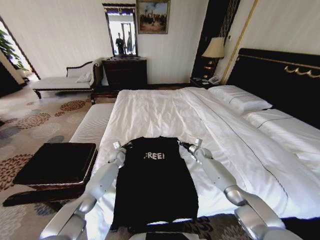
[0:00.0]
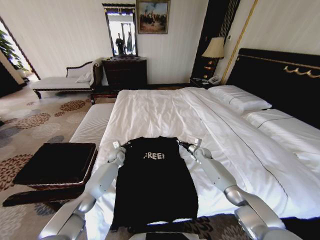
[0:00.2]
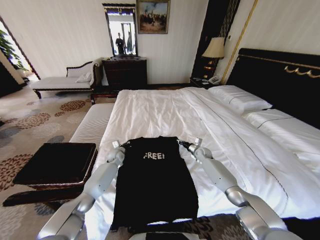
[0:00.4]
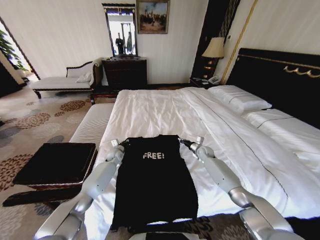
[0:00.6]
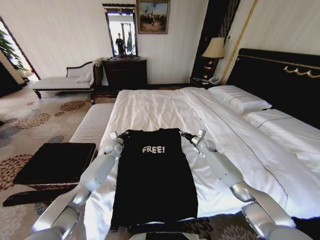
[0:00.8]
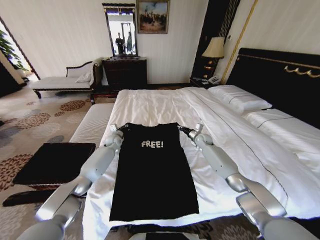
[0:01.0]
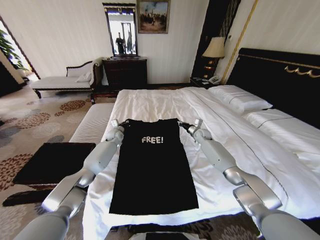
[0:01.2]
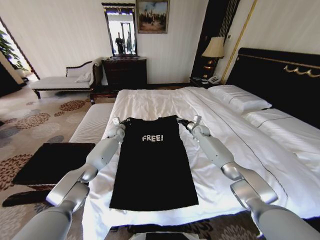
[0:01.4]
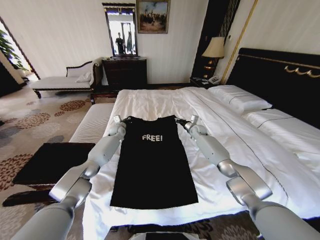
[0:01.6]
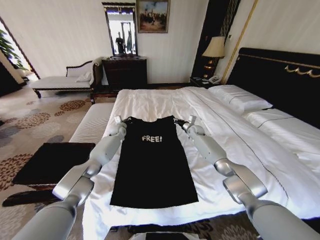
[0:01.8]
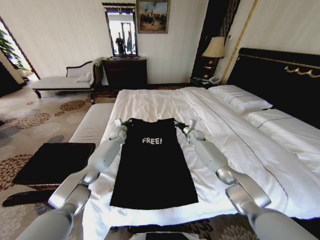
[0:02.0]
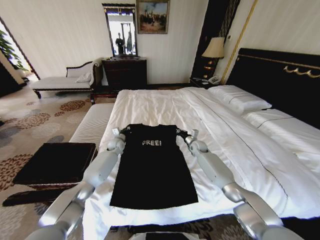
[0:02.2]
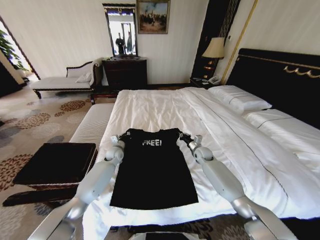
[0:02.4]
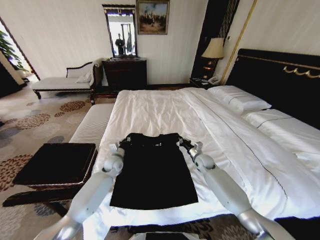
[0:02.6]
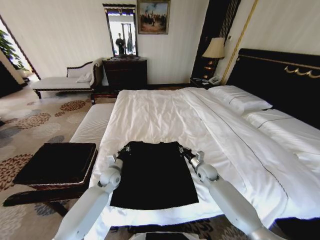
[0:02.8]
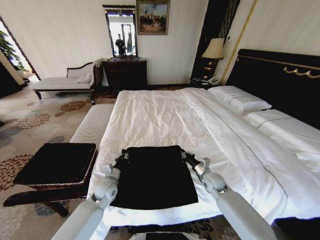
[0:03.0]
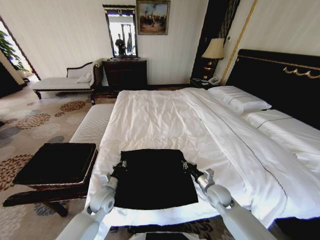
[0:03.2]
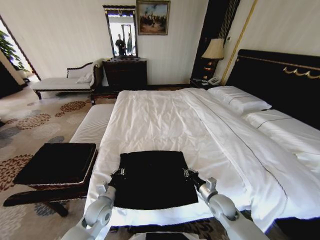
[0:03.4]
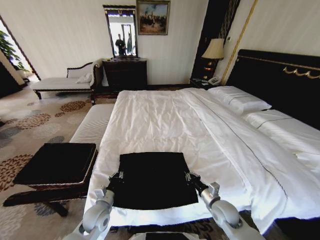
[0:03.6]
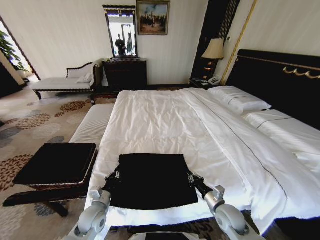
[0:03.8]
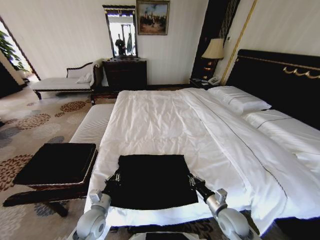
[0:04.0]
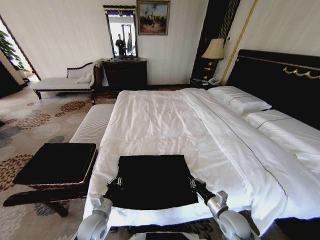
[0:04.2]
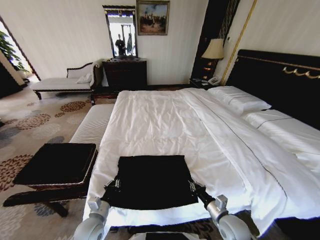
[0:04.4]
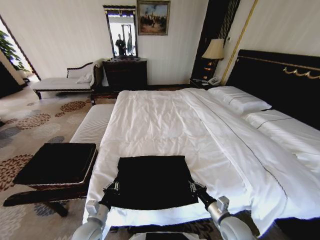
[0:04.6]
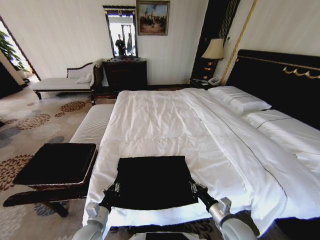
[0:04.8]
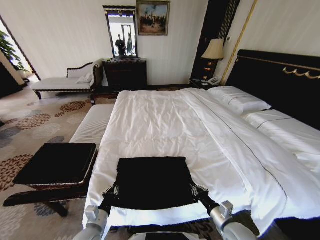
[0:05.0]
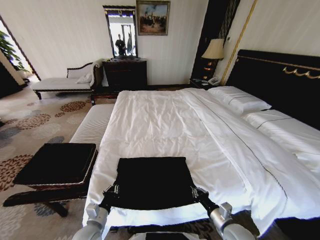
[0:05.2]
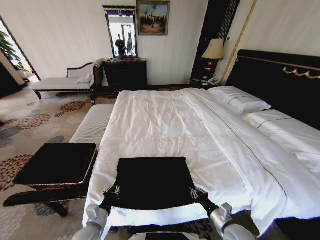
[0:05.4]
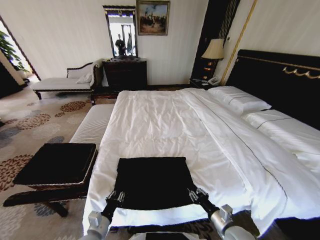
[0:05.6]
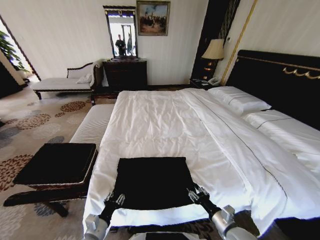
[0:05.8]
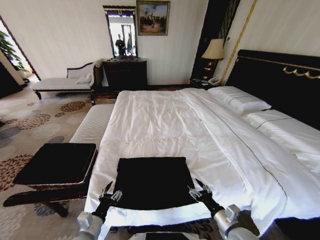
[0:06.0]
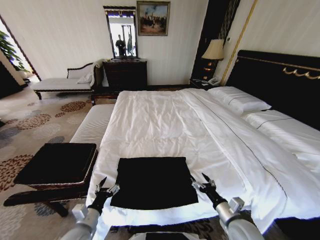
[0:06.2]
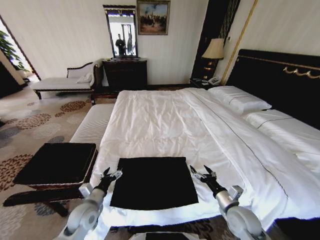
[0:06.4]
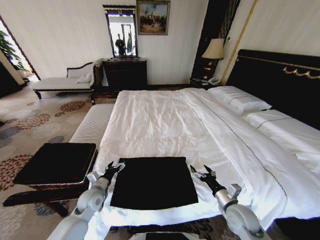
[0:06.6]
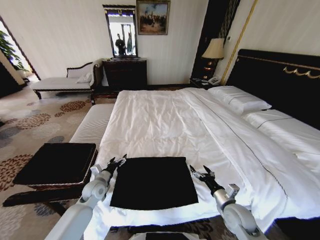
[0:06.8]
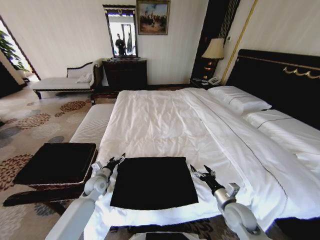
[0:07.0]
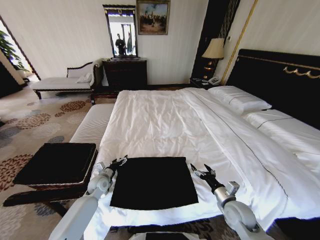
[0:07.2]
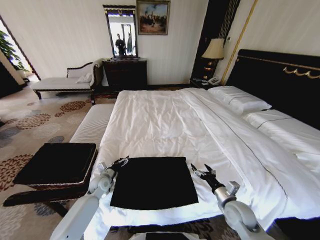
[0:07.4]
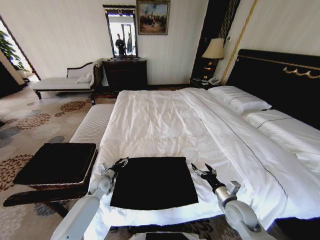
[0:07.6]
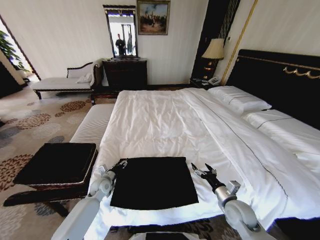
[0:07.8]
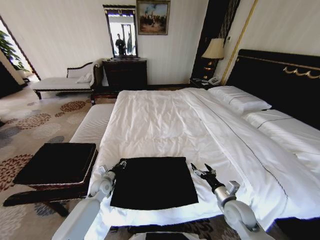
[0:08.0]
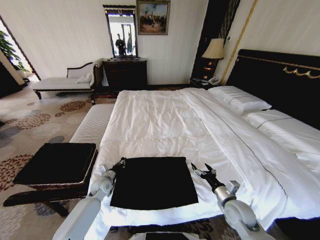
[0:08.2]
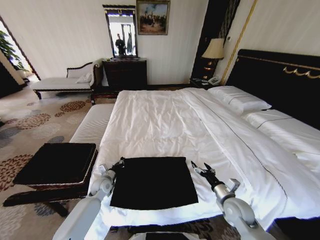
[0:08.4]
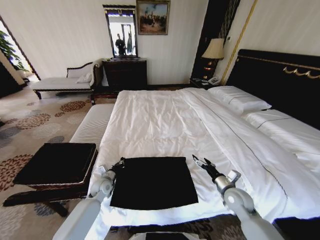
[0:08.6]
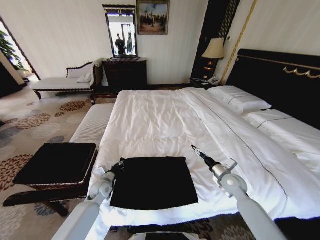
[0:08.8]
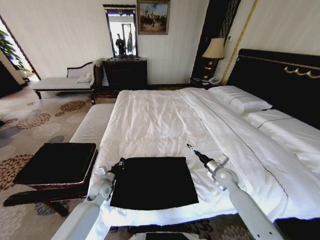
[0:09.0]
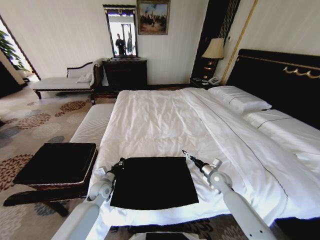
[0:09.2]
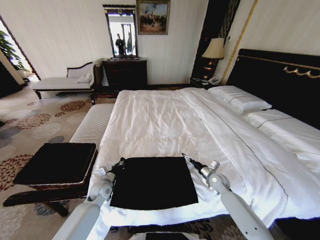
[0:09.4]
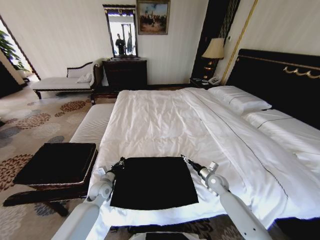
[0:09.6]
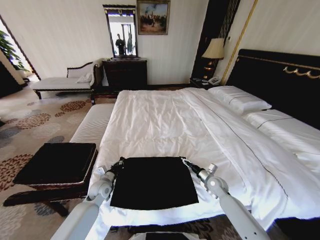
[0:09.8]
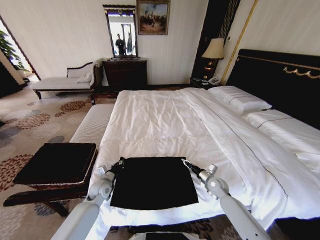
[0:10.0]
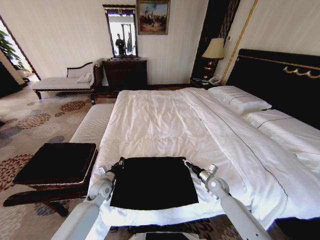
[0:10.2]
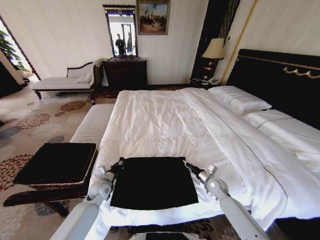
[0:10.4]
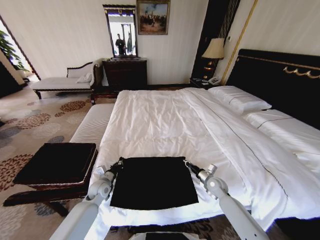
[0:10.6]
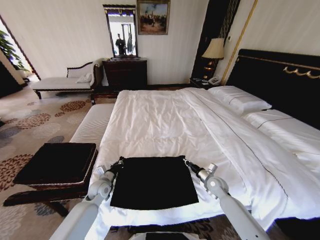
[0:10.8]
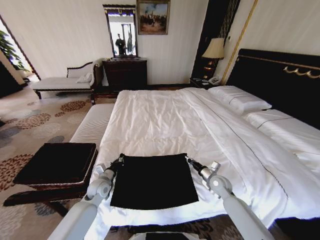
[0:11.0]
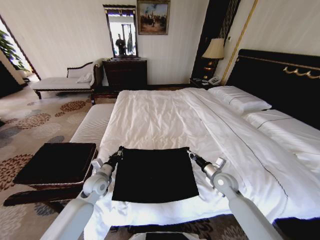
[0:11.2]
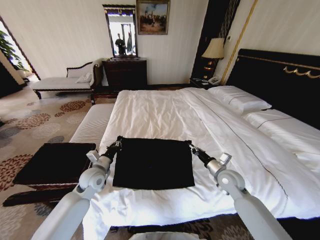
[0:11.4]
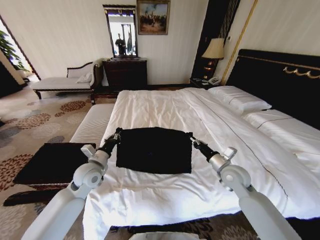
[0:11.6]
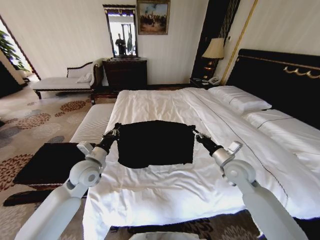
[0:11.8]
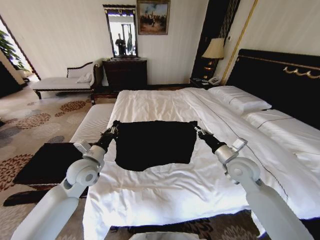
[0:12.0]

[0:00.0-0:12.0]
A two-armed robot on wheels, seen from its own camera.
Task of the whole recording: Fold the clothes on the bed and place them into the basket.
0:00.0 to 0:01.6: Both grippers travel together upward and forward, roughly 15 cm.
0:01.6 to 0:03.0: Both grippers move backward, roughly 30 cm.
0:03.0 to 0:04.4: Both grippers move backward, approximately 15 cm.
0:04.4 to 0:06.0: The left gripper moves backward, some 5 cm, and opens up; the right gripper opens.
0:06.0 to 0:07.6: The right gripper heads forward, covering some 10 cm, and opens its fingers. The left gripper shifts approximately 25 cm forward.
0:07.6 to 0:09.0: The right gripper heads forward, covering roughly 15 cm. The left gripper closes up.
0:09.0 to 0:10.4: The right gripper is displaced downward by roughly 5 cm, and closes up.
0:10.4 to 0:12.0: The grippers both shift upward by some 20 cm.

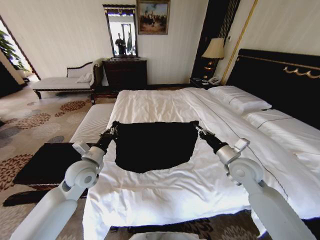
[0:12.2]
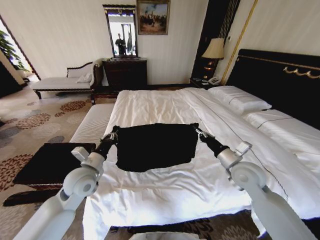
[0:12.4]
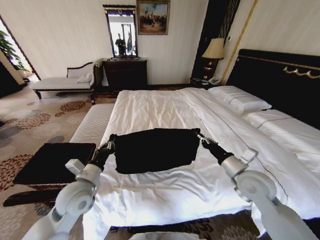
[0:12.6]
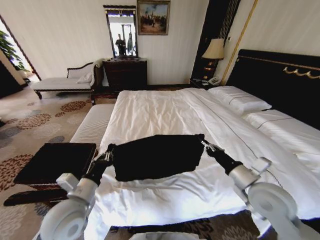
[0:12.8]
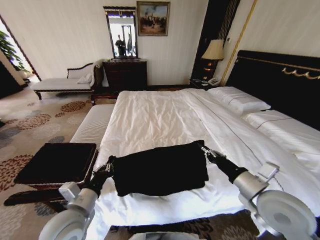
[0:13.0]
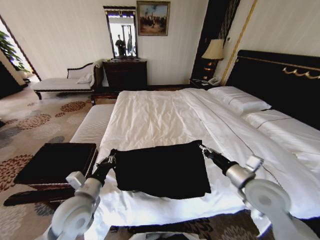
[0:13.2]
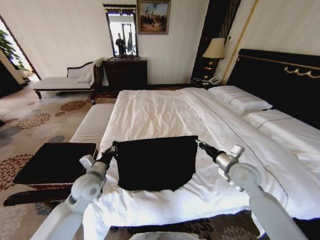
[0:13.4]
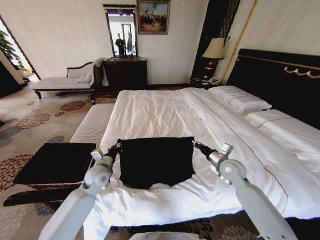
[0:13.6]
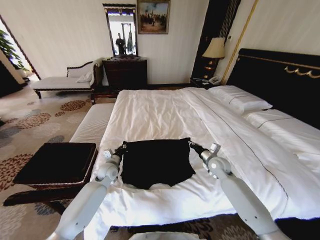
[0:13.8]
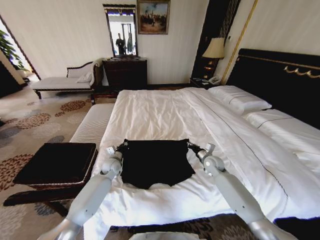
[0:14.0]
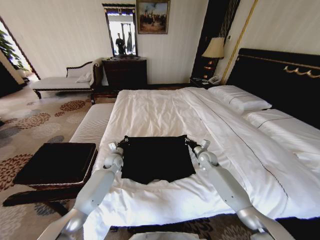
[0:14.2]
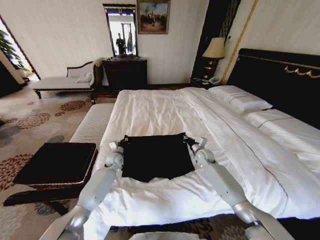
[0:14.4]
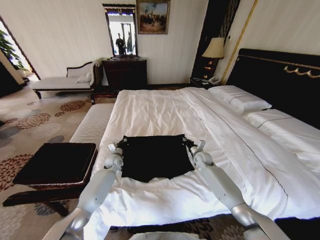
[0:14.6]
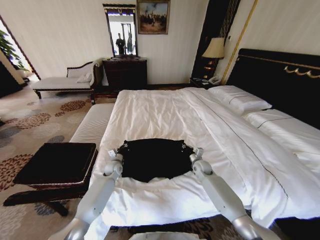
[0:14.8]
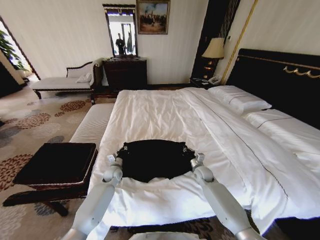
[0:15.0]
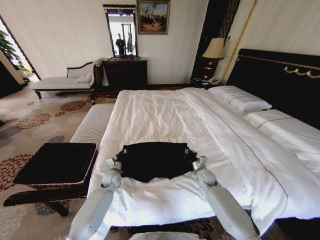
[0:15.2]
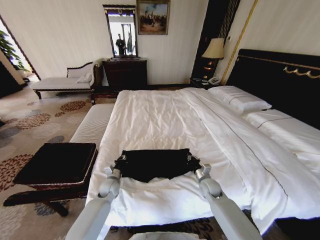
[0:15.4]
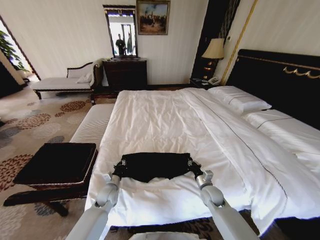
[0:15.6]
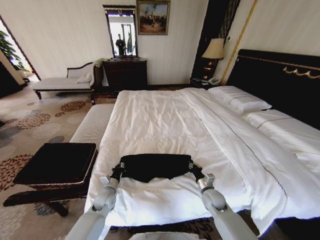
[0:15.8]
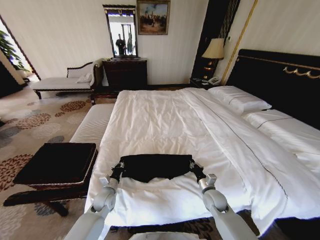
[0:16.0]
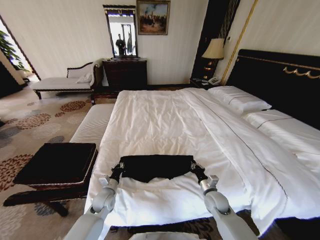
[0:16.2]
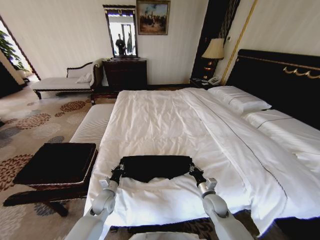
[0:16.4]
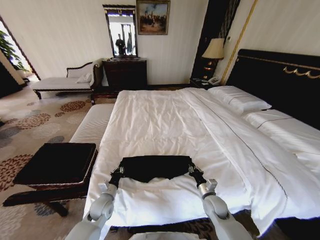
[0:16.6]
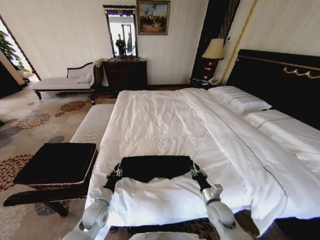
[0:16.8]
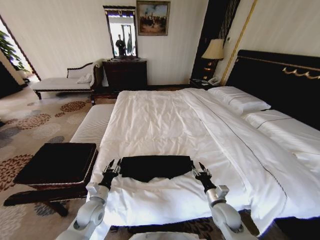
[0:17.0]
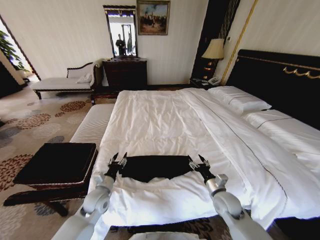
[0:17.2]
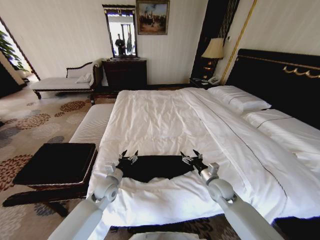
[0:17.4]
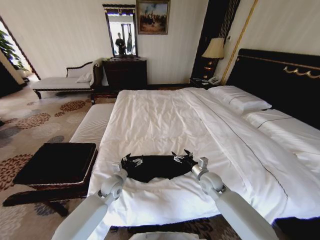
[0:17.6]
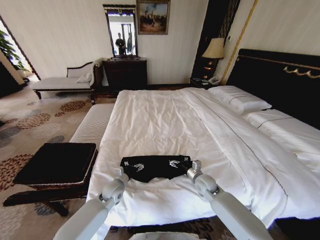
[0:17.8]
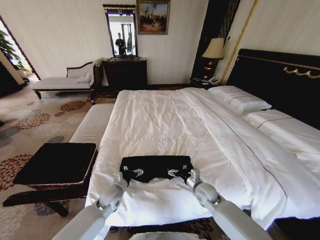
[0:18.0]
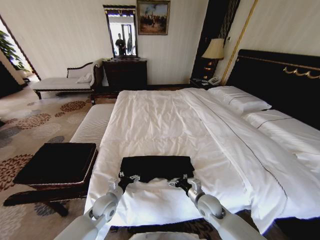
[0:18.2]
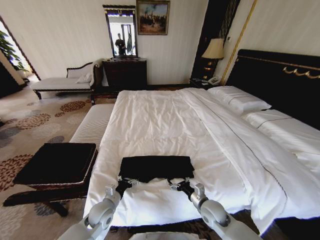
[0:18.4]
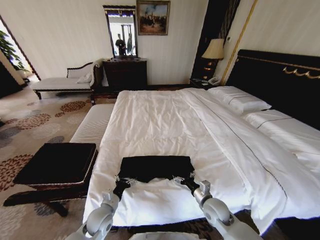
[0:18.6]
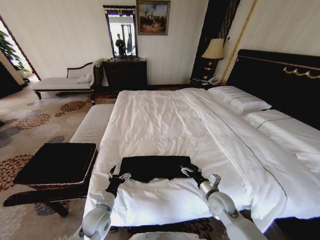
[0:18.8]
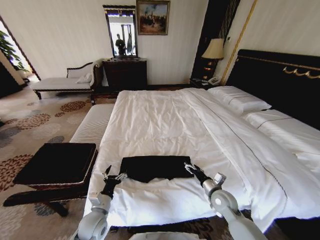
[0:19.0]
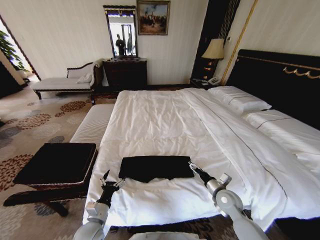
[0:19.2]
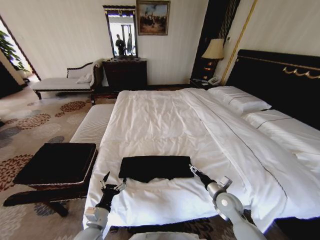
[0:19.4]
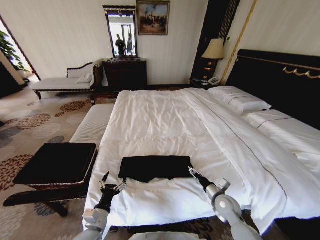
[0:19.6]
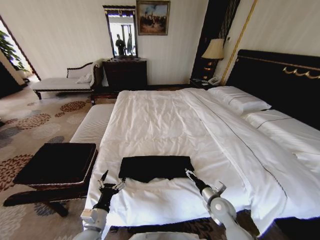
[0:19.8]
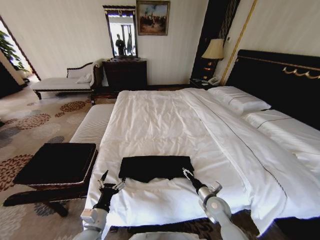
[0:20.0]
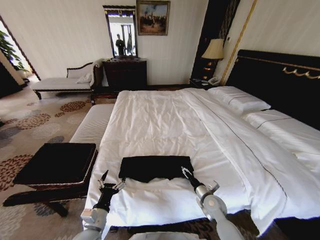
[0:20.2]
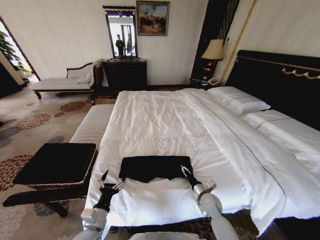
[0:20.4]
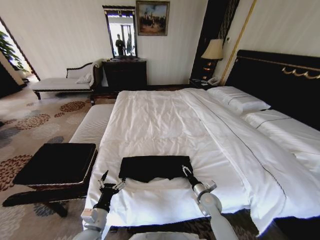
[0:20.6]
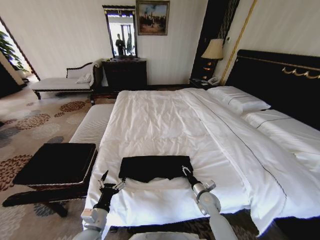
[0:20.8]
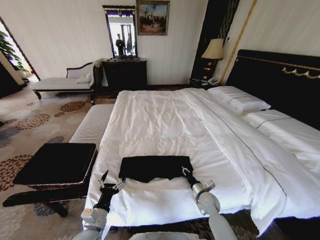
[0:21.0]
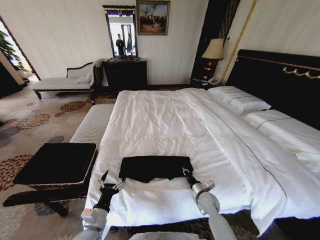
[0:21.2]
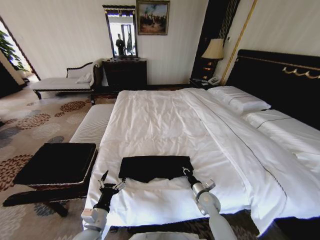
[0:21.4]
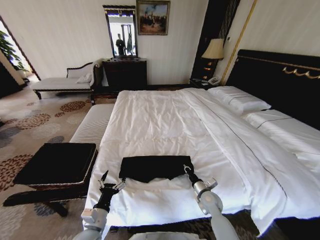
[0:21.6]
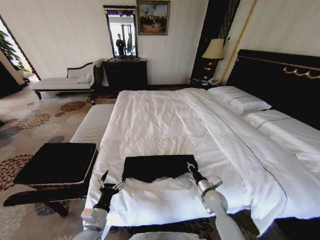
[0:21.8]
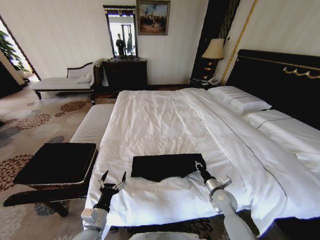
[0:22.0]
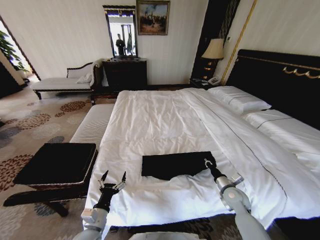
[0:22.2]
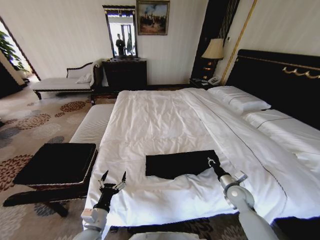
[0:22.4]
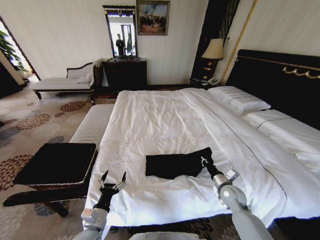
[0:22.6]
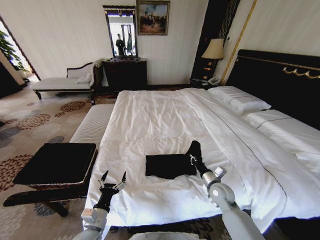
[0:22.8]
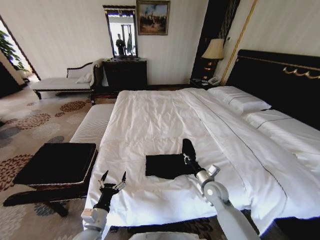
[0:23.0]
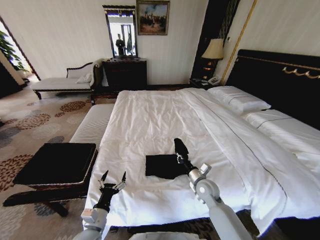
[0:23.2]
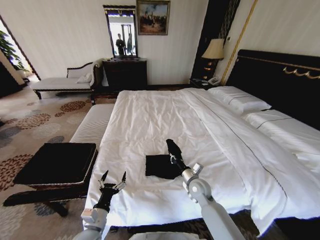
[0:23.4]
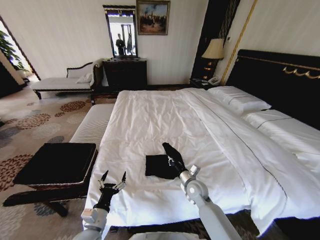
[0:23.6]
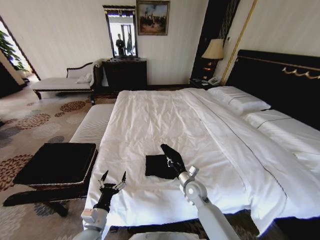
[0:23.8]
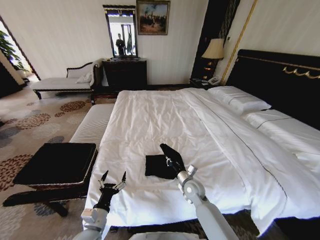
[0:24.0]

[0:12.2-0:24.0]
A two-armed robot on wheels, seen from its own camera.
Task of the whole recording: Fold the clothes on the bed and place them into the basket.
0:12.2 to 0:13.6: Both grippers travel together downward, approximately 10 cm. The right gripper moves roughly 15 cm backward and comes back. The left gripper goes backward and returns, about 15 cm each way.
0:13.6 to 0:15.2: Both grippers move downward, roughly 15 cm. The left gripper travels forward and back again, about 15 cm each way.
0:15.2 to 0:16.6: Both grippers travel together backward, roughly 10 cm.
0:16.6 to 0:18.2: The left gripper reaches about 5 cm forward, then returns, and opens, while the right gripper moves forward and backward over about 15 cm, changing direction 2 times, and opens.
0:18.2 to 0:19.6: The right gripper heads to the right, covering some 10 cm, while the left gripper heads backward, covering some 10 cm.
0:19.6 to 0:21.0: The right gripper travels downward by some 5 cm, and closes.
0:21.0 to 0:22.6: The right gripper goes roughly 10 cm to the right and upward.
0:22.6 to 0:24.0: The right gripper heads to the left, covering about 15 cm.
